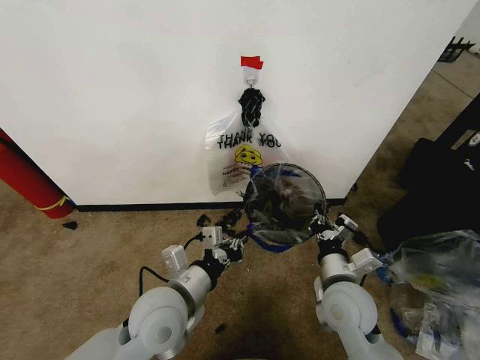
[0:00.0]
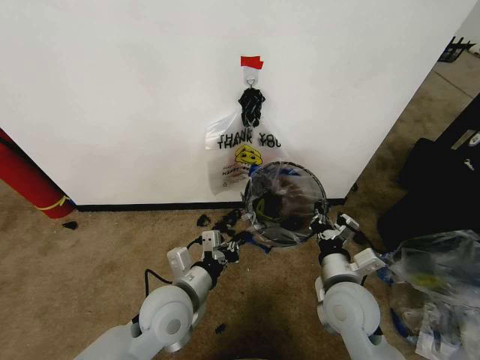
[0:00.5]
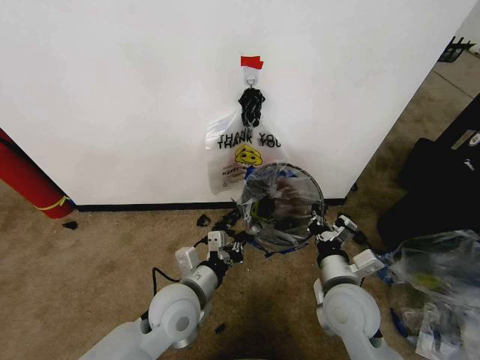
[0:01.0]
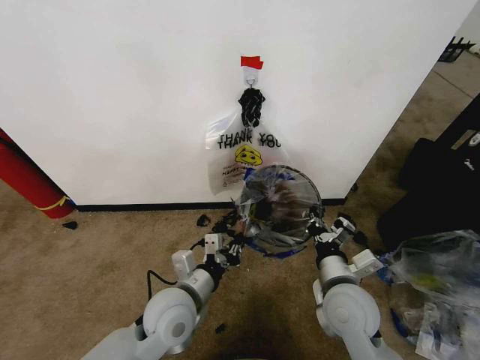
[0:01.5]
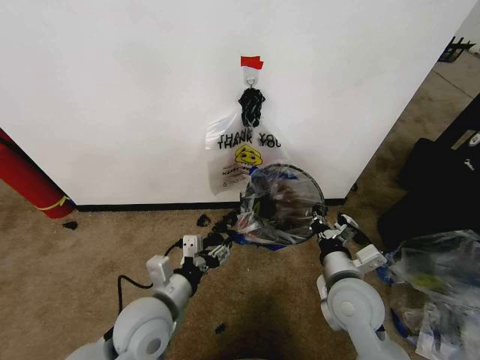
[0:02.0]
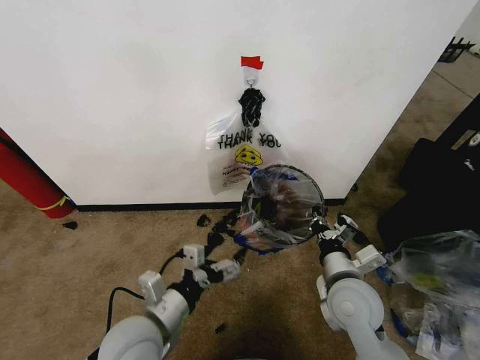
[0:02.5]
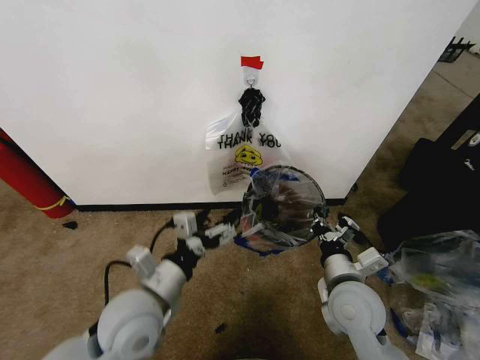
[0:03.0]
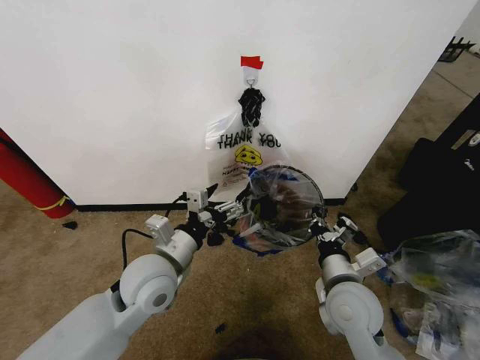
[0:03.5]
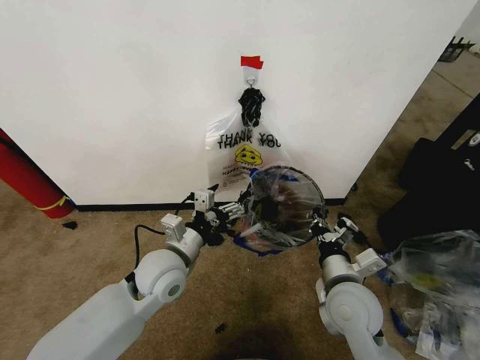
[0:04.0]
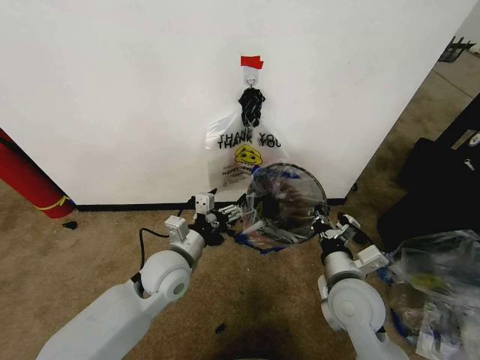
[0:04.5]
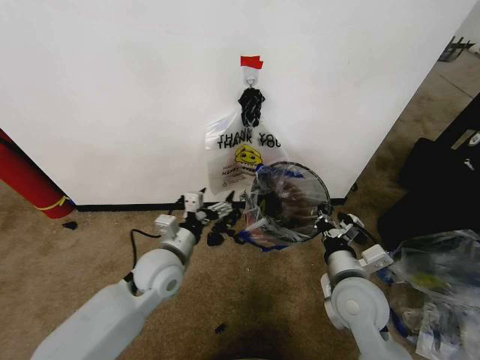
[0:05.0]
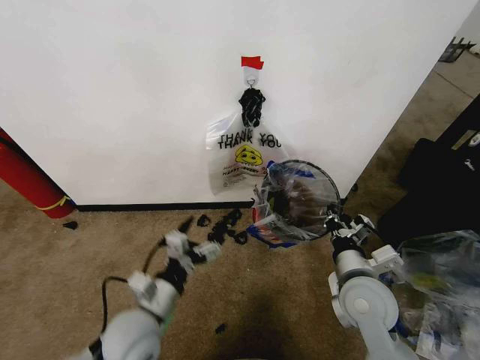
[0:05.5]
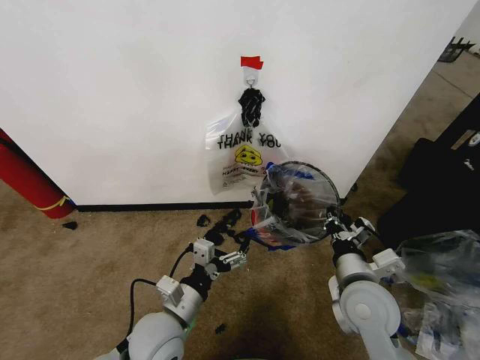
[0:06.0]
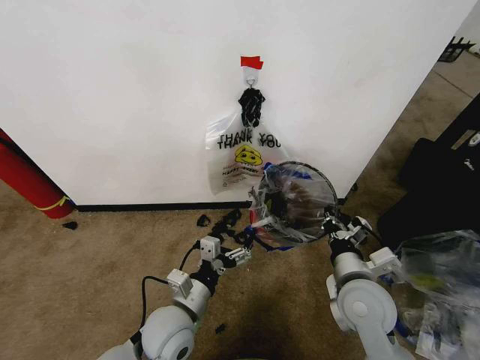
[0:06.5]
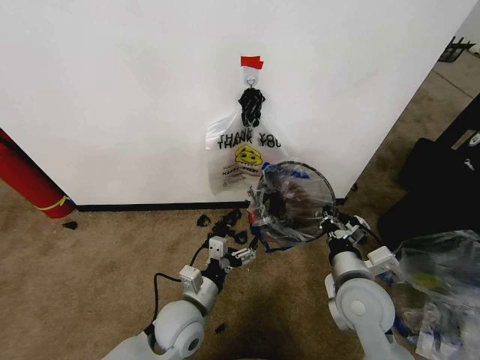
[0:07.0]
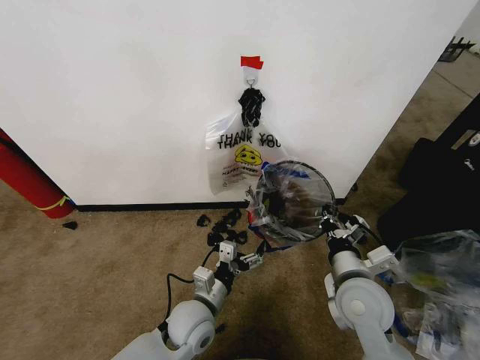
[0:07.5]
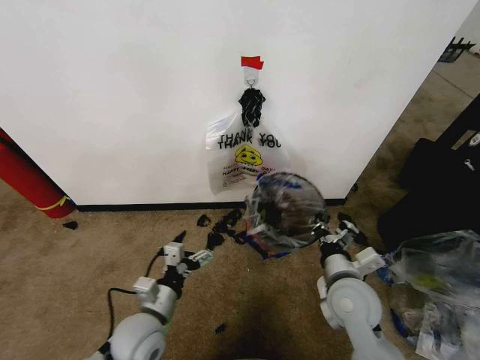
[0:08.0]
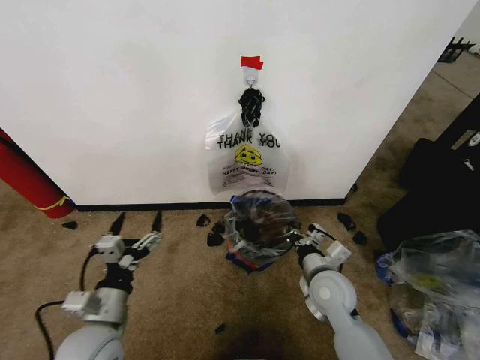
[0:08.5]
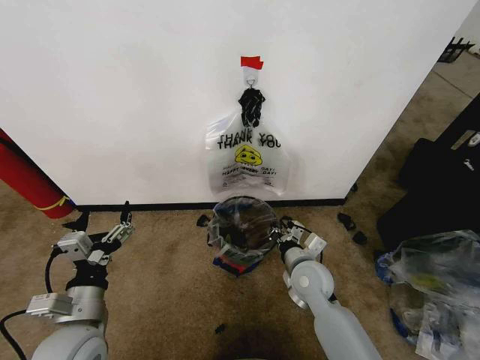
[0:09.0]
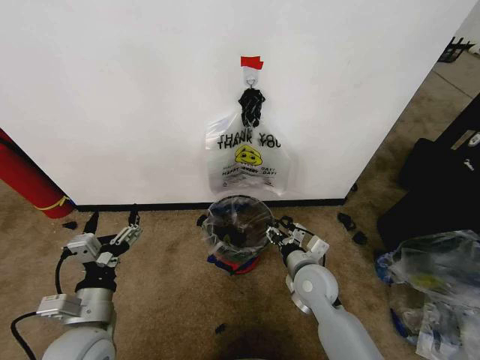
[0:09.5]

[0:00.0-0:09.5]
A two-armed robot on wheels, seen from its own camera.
Task of the whole recording: Pick up the garbage bag from the wall and place it over the trash bin.
0:00.0 to 0:02.0: The left gripper opens its fingers.
0:02.0 to 0:04.0: The left gripper goes roughly 10 cm forward.
0:04.0 to 0:05.5: The left gripper heads backward, covering some 10 cm.
0:05.5 to 0:07.5: The left gripper goes about 10 cm to the right and downward.
0:07.5 to 0:09.5: The left gripper heads to the left, upward and backward, covering approximately 20 cm. Meanwhile the right gripper heads downward, forward and to the left, covering some 10 cm, and opens.

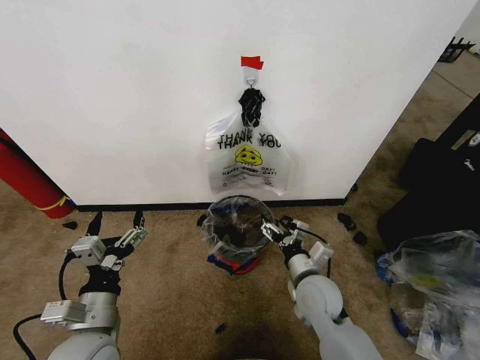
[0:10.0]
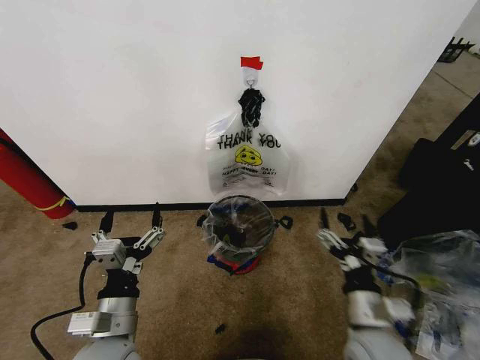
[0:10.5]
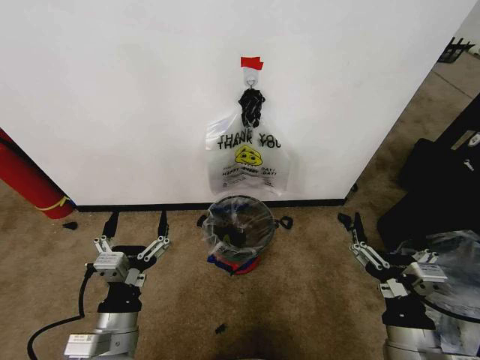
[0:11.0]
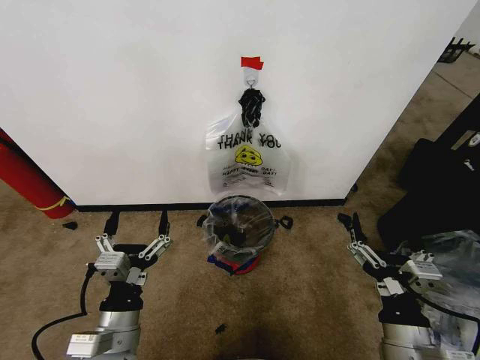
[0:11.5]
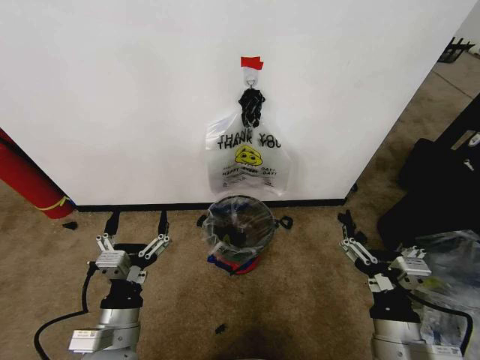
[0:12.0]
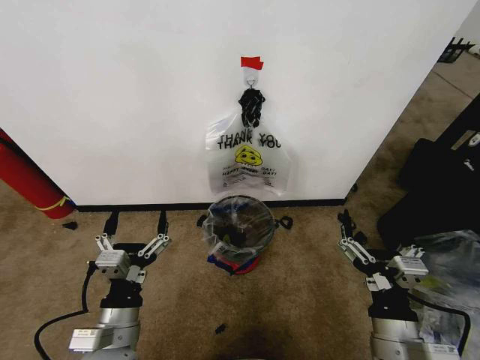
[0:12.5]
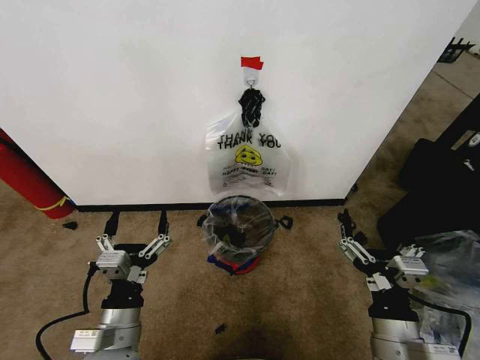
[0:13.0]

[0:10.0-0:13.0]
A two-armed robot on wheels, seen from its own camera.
Task of the whole recording: Pick up the garbage bag from the wall and place it over the trash bin.
0:10.0 to 0:11.5: The right gripper moves backward, to the right and upward, about 20 cm, while the left gripper moves about 5 cm.
0:11.5 to 0:13.0: There are only small adjustments of the grippers.
